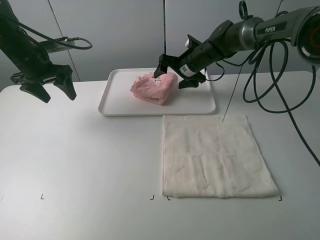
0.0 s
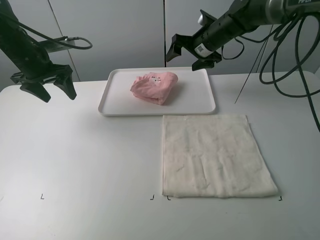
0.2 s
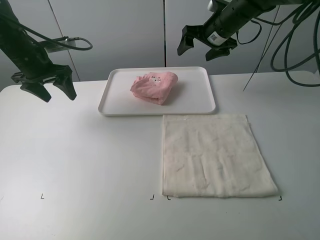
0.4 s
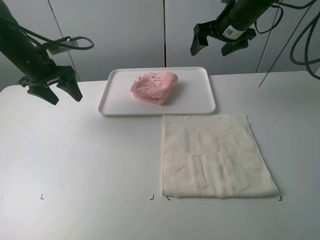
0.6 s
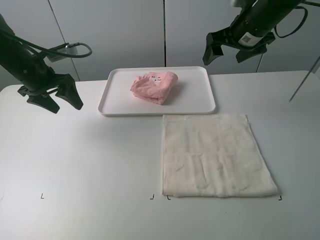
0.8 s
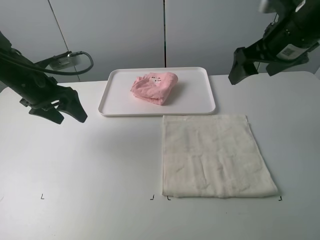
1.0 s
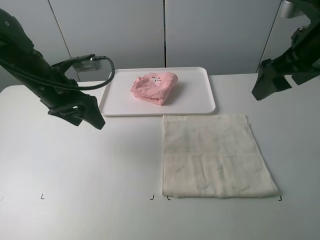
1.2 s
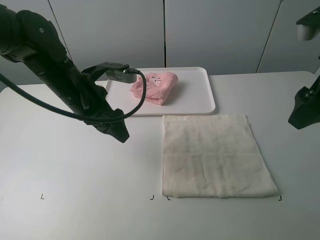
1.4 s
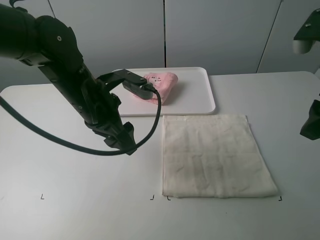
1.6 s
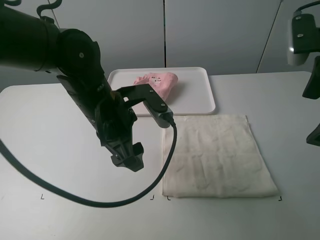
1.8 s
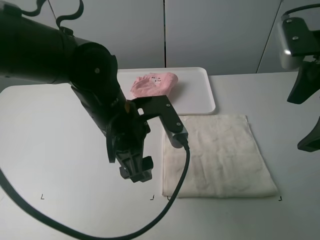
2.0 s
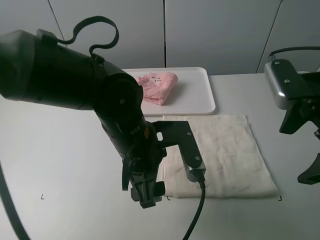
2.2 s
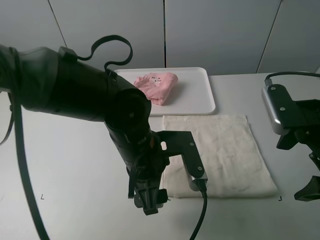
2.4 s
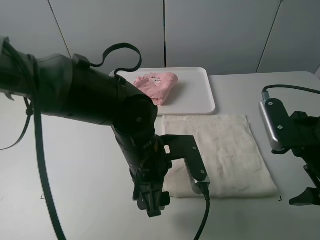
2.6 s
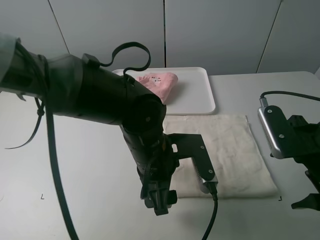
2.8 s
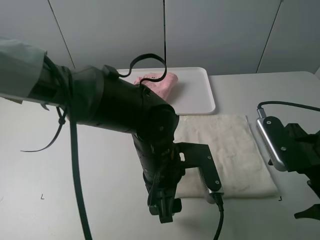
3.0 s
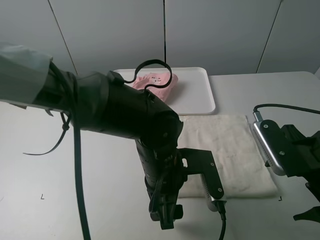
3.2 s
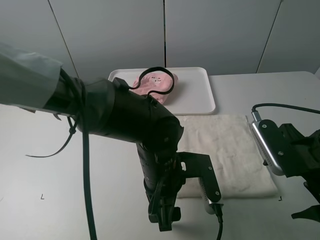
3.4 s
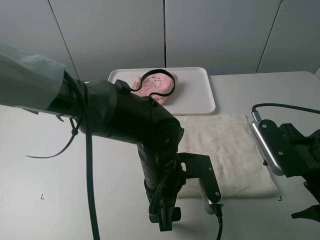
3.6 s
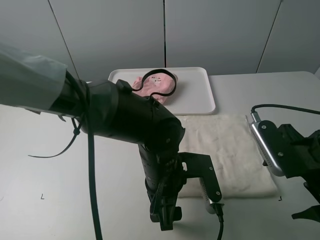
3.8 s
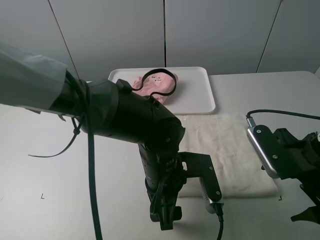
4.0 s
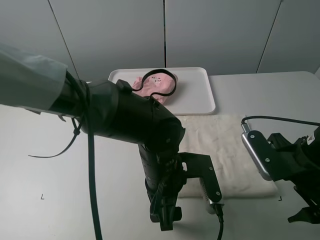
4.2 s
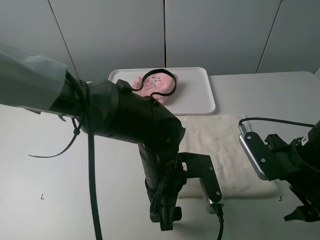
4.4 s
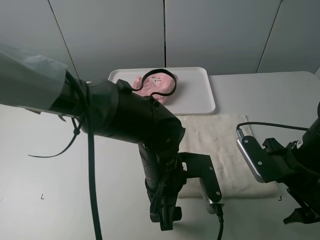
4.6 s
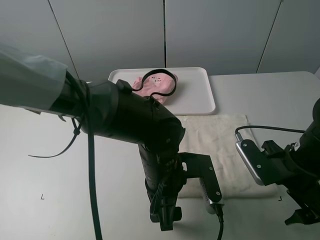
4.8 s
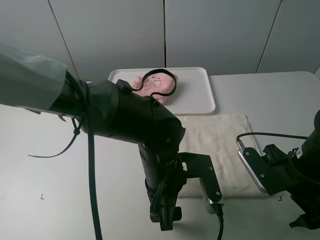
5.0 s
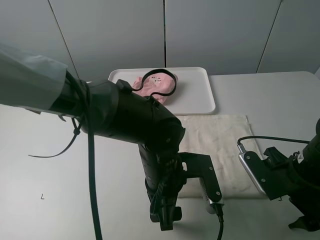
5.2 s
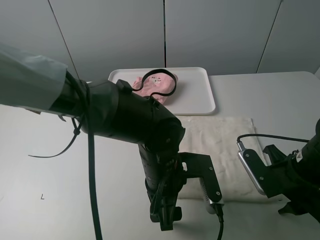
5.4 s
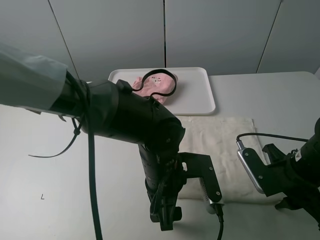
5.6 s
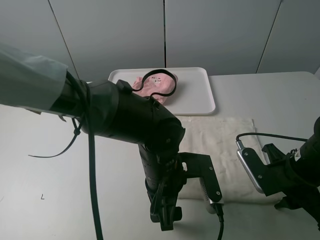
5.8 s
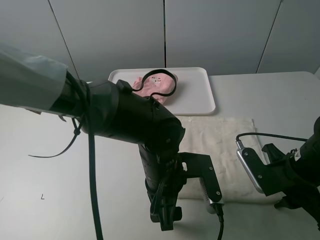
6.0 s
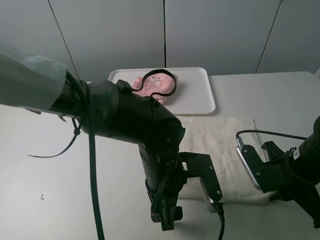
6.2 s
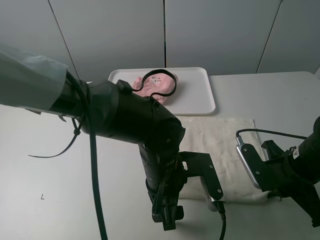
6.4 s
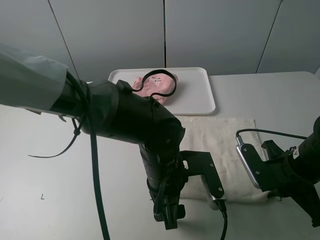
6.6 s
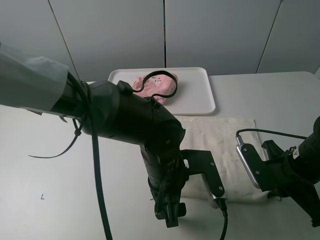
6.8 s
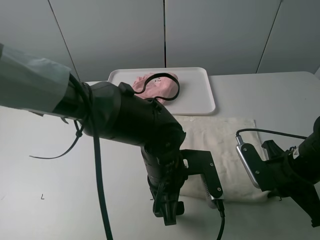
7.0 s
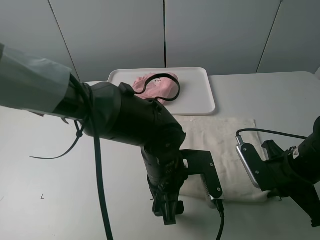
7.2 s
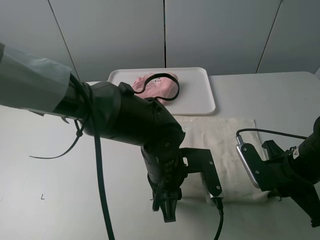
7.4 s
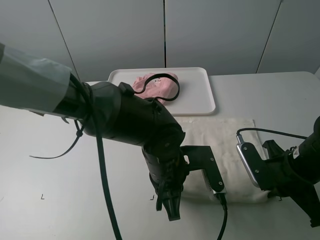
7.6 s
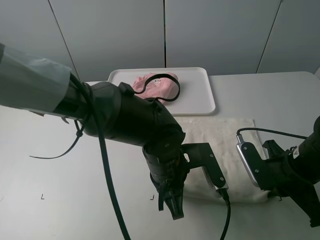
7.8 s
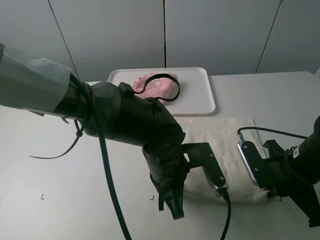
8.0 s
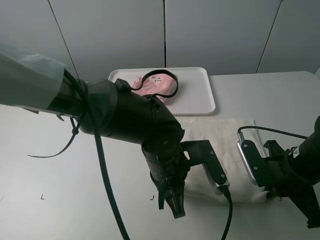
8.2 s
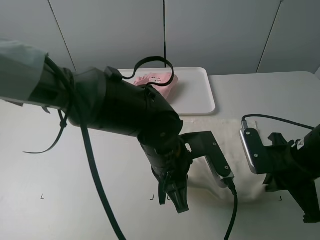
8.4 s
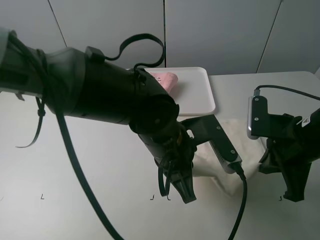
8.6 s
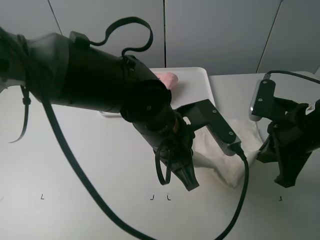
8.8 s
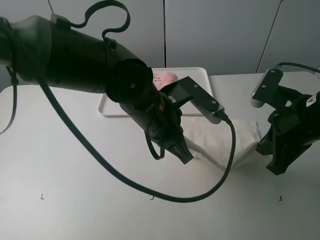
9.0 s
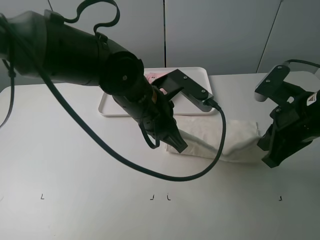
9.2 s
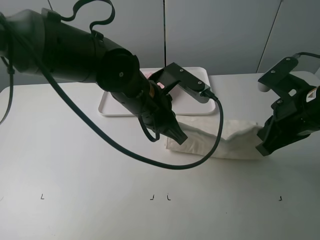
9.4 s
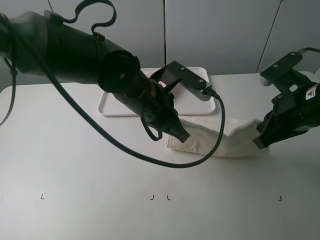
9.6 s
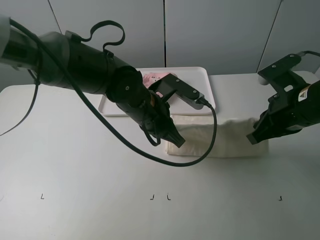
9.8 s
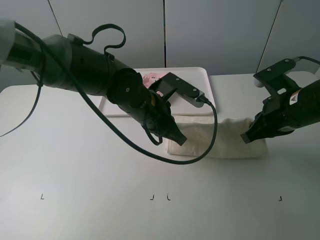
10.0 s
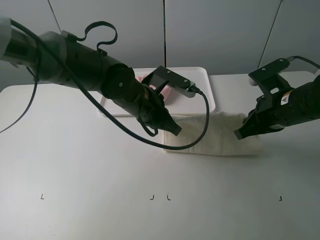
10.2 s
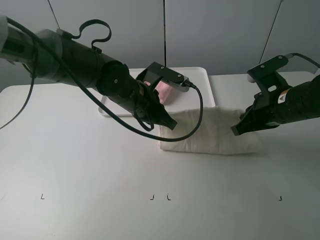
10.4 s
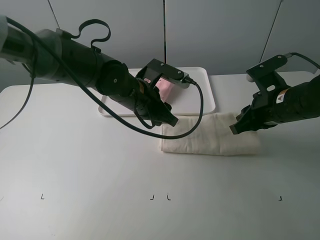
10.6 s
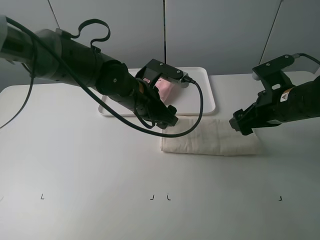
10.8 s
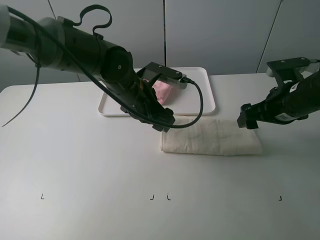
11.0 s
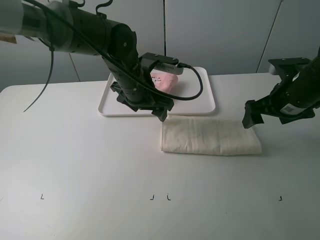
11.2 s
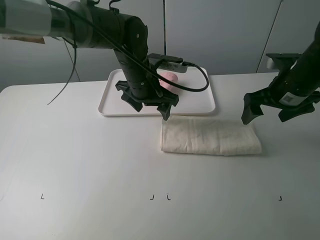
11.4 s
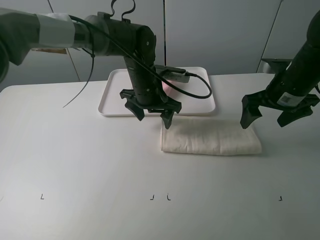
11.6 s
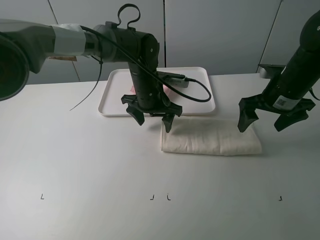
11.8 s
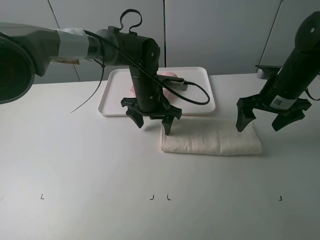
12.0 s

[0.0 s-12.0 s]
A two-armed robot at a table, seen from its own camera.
Task of the whole recording: fold one of the towels by two grippers and place it on the tray,then fold another towel by two grippers and place it on the folded towel.
Step, 0.0 to 7.8 s: Grasp the white towel with the left gripper.
Step, 8.0 to 11.0 s: Fold the white towel upwards with the left gripper.
0.0 to 1.6 s: The left gripper moves to the right and backward, approximately 25 cm. The right gripper travels backward, upward and to the right by some 35 cm.
1.6 to 3.0 s: The left gripper goes approximately 15 cm to the right, backward and downward. Meanwhile the right gripper moves downward and backward, some 15 cm.
3.0 to 4.4 s: The grippers move only a little.
4.4 to 6.0 s: The right gripper closes up.
6.0 to 7.6 s: The left gripper closes its fingers. The right gripper closes up.
7.6 to 9.0 s: Both grippers move upward, approximately 10 cm.
9.0 to 10.4 s: The grippers both shift forward by approximately 5 cm.
10.4 to 12.0 s: The grippers both shift forward by approximately 5 cm. The right gripper opens, while the left gripper opens up.

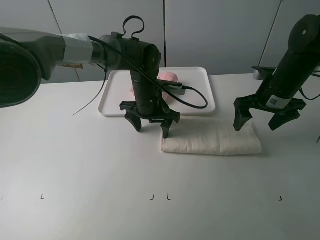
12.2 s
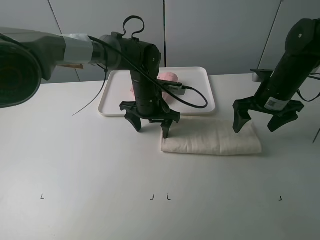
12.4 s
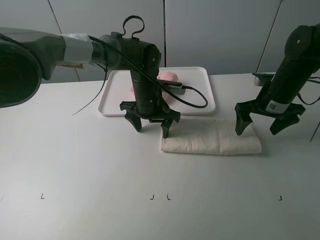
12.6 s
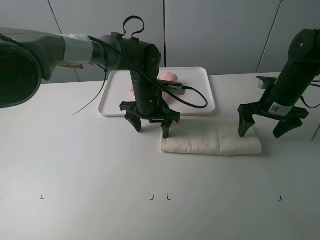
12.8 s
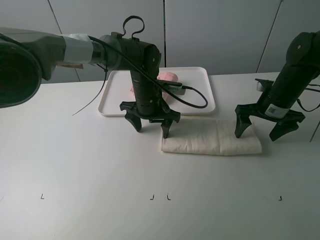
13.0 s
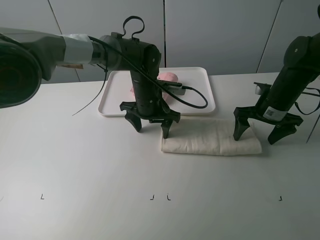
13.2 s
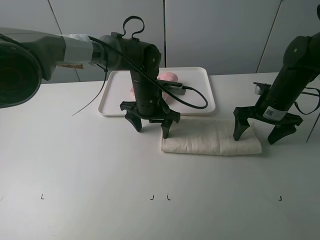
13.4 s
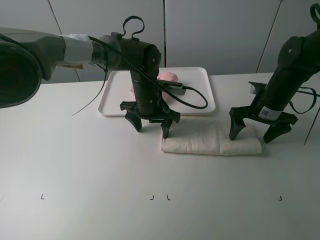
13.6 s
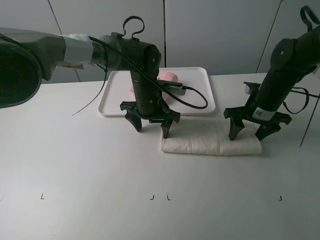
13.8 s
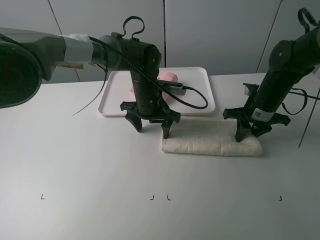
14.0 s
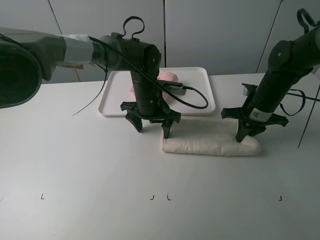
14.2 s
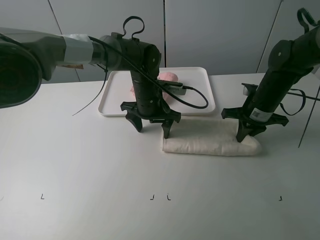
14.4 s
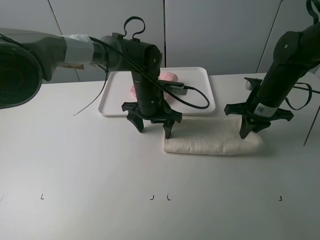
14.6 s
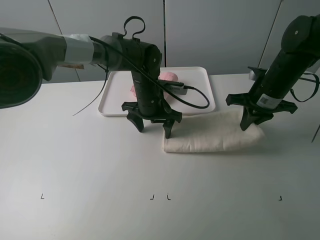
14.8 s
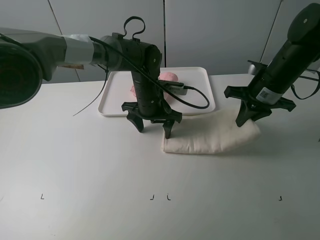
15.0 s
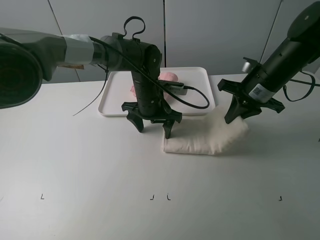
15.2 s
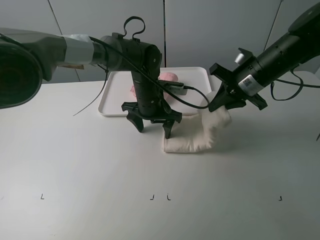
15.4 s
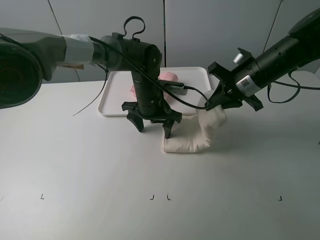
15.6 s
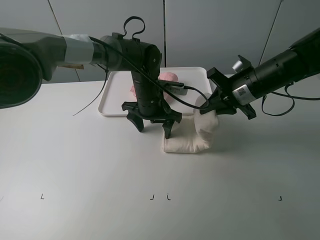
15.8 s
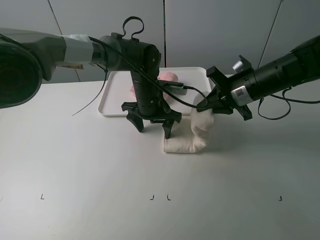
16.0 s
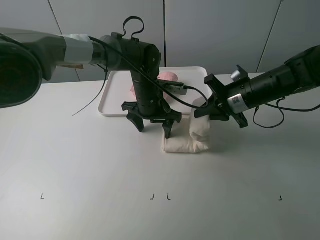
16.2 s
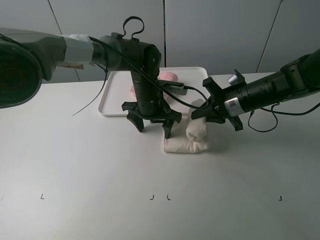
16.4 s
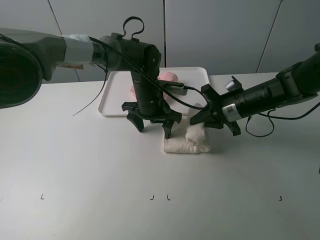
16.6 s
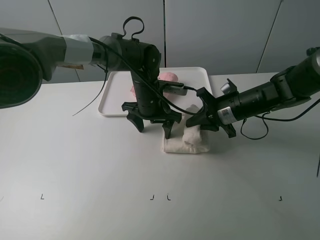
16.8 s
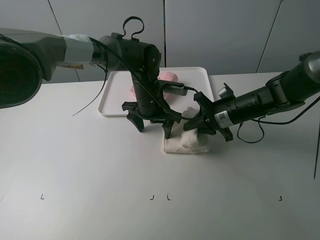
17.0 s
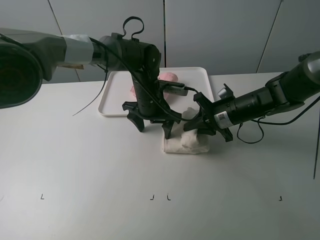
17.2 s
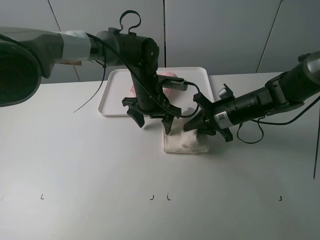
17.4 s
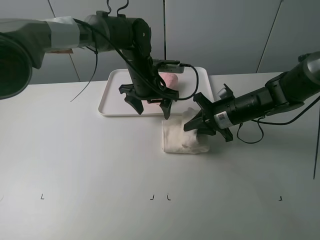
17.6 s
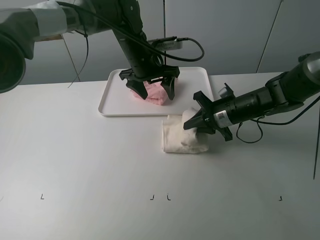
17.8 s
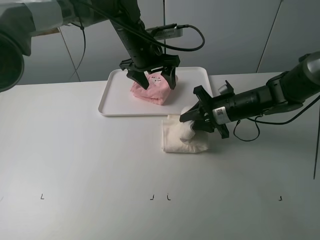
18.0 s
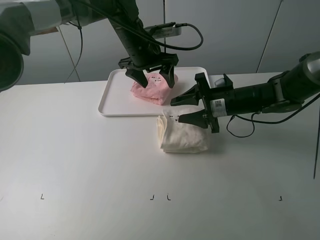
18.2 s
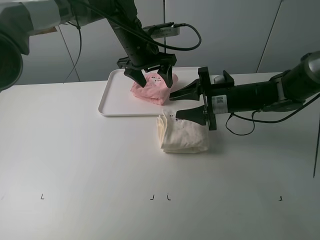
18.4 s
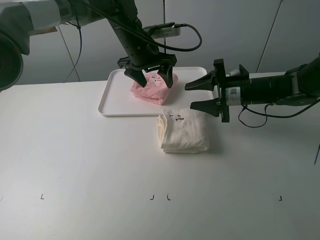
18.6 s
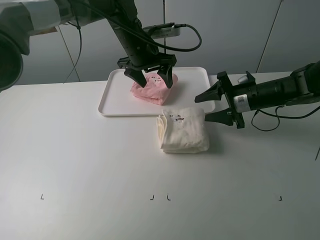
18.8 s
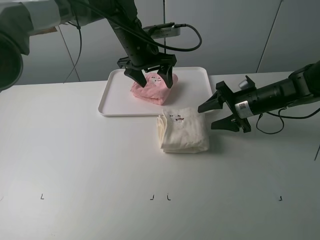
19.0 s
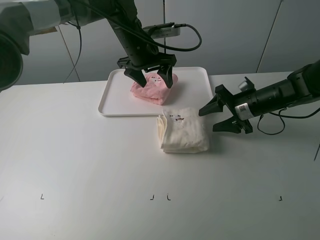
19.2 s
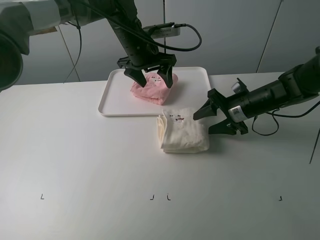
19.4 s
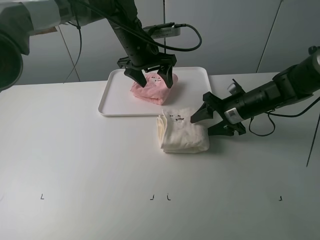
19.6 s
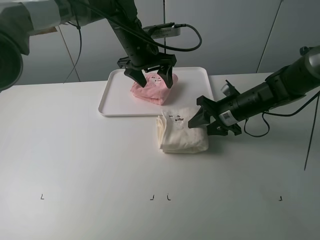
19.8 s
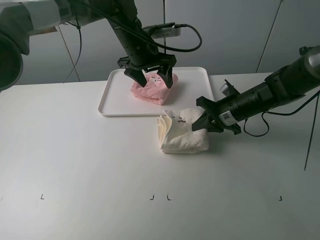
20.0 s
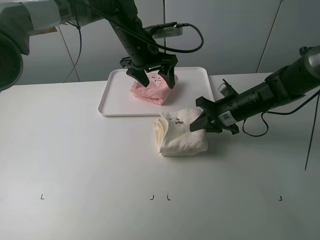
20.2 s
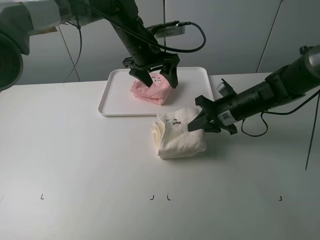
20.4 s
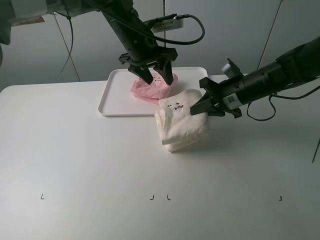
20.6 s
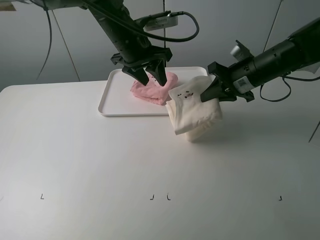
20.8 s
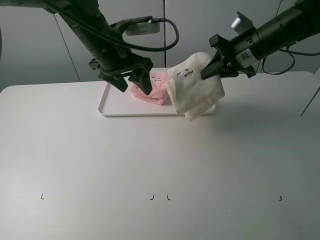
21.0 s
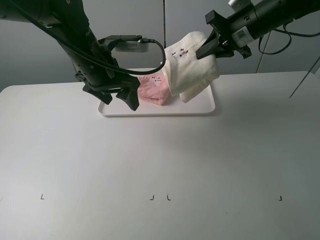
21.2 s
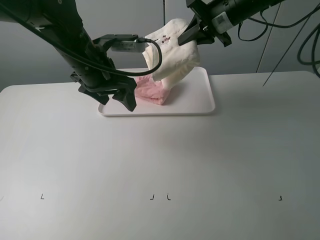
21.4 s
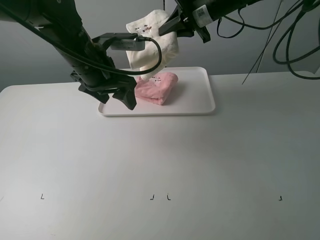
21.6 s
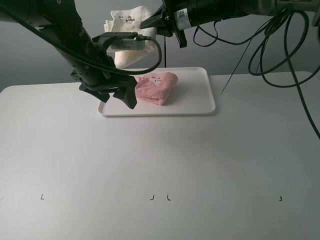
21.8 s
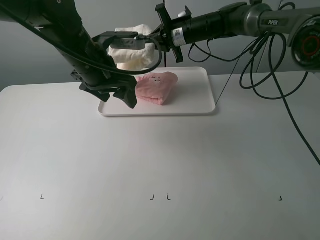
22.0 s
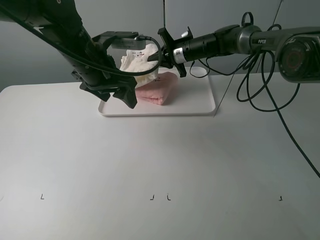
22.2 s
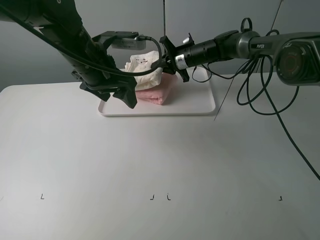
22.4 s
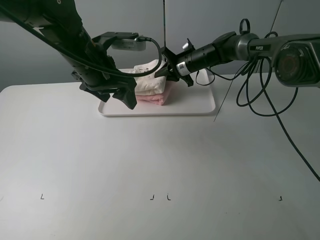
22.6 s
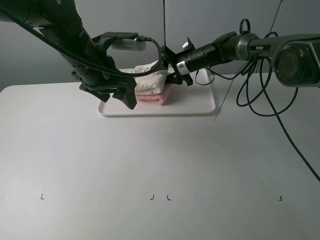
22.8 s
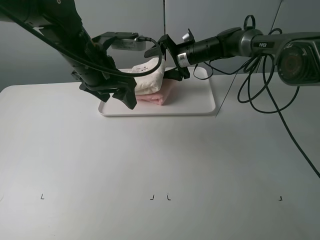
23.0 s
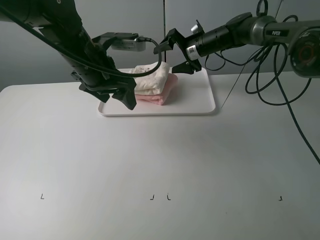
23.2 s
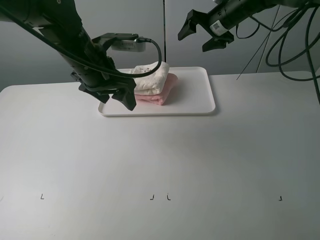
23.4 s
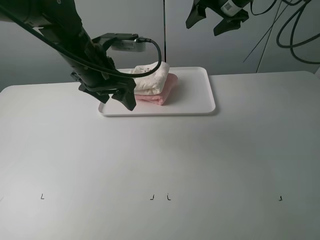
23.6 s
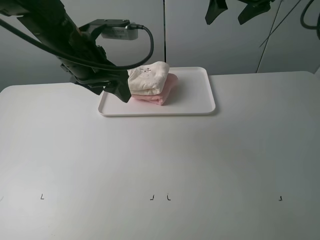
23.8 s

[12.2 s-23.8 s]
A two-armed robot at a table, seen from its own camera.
Task of the whole recording: fold one of the towels by two grippers and place it on the tray,then fold another towel by two grippers and place it on the folded towel.
Step, 13.0 to 14.4 s: Grasp the white towel with the right gripper.
Step, 14.6 to 18.4 s: Fold the white towel from right to left with right gripper.
Step, 18.6 to 20.0 s: Grasp the white towel with the right gripper.
Step, 20.2 to 23.6 s: Place the white towel on the pink towel with the right gripper.
12.2 to 13.6 s: There are only small adjustments of the grippers.
13.6 to 15.0 s: The right gripper heads upward, covering some 5 cm, and closes.
15.0 to 16.6 s: The right gripper is displaced downward by roughly 5 cm.
16.6 to 18.0 s: The right gripper opens its fingers; the left gripper goes approximately 10 cm upward and forward.
18.0 to 19.4 s: There are only small adjustments of the grippers.
19.4 to 21.0 s: The right gripper heads upward, covering some 15 cm, and closes its fingers. The left gripper shifts some 10 cm backward and to the left.
21.0 to 22.4 s: The right gripper heads forward, downward and to the left, covering about 20 cm.
22.4 to 23.8 s: The right gripper is displaced upward and to the right by approximately 25 cm, and opens up.
